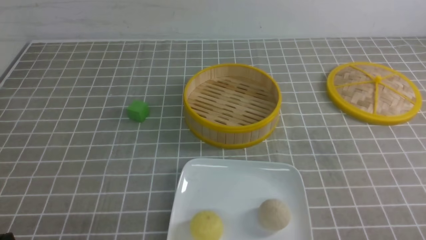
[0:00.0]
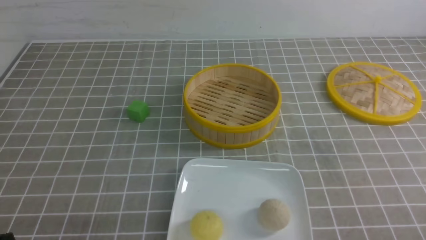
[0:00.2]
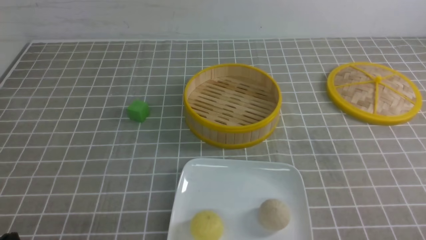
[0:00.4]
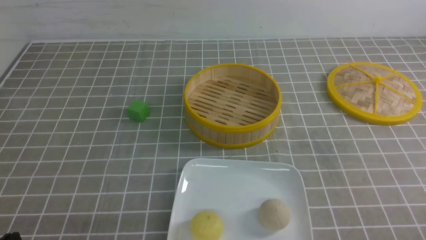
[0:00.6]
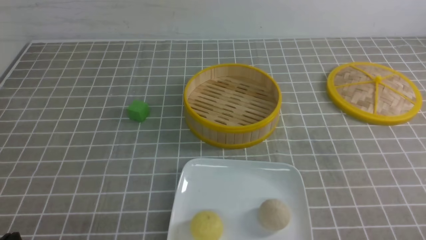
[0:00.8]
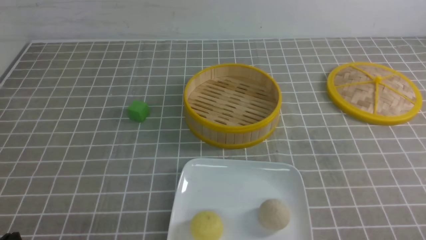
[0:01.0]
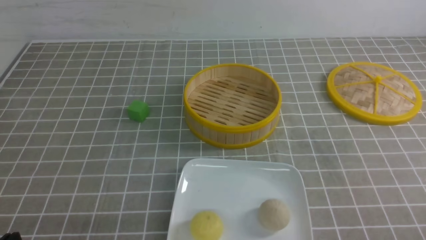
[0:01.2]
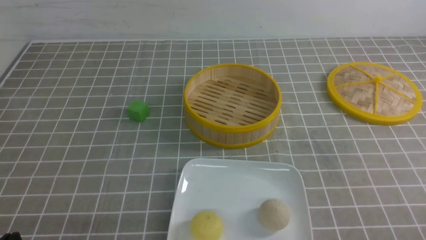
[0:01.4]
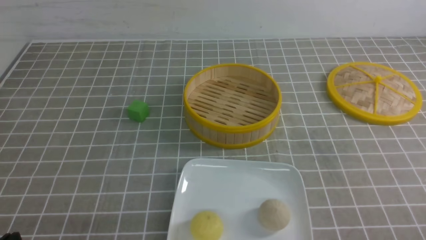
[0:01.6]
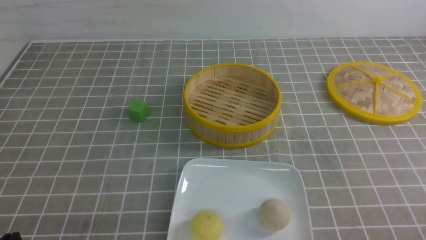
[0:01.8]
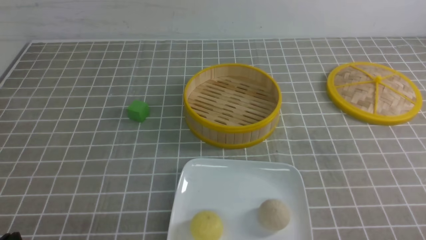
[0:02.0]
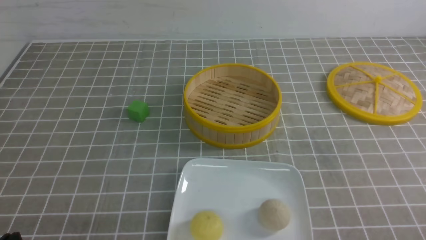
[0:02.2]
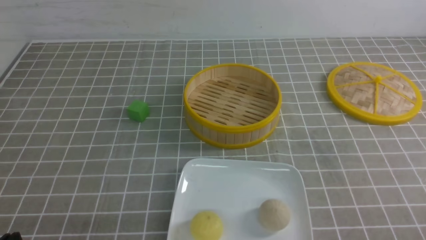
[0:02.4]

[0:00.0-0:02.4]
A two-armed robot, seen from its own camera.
0:00.0 to 0:02.4: The two grippers keep their place.

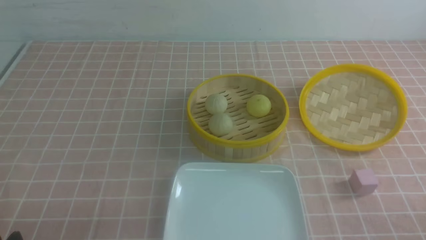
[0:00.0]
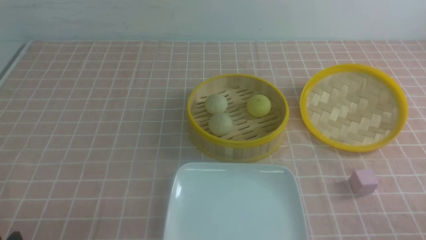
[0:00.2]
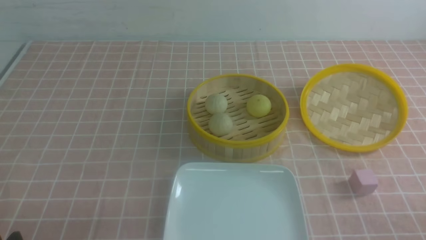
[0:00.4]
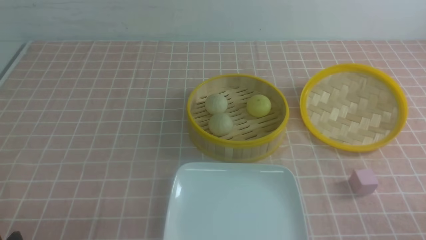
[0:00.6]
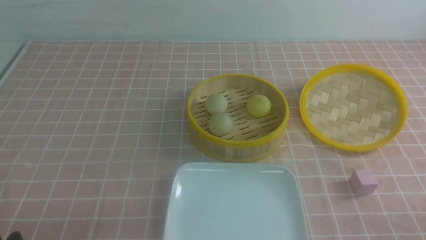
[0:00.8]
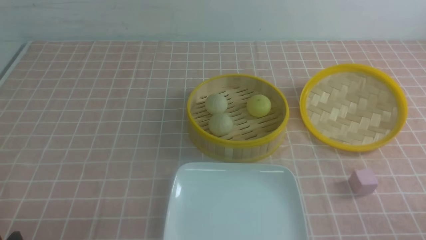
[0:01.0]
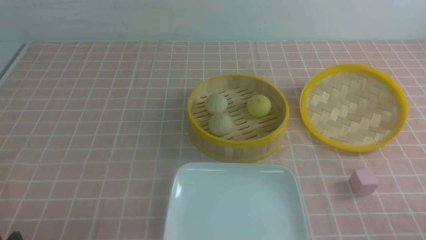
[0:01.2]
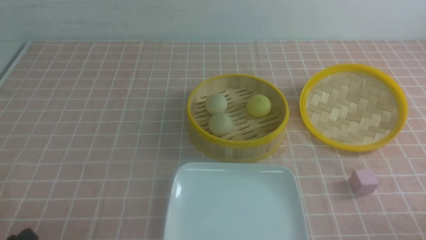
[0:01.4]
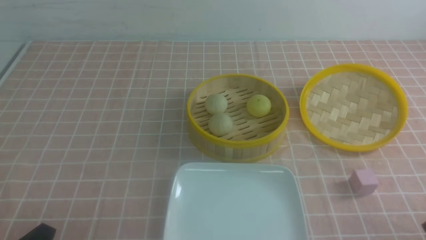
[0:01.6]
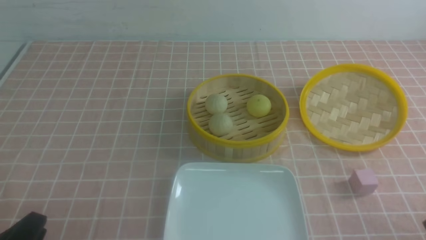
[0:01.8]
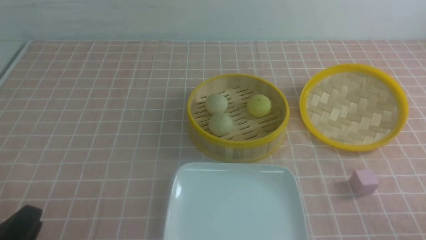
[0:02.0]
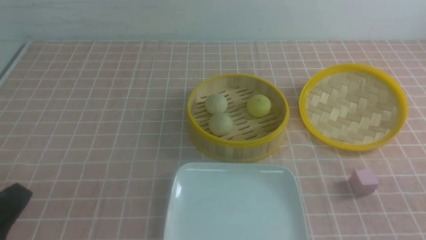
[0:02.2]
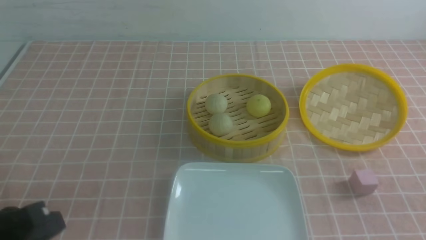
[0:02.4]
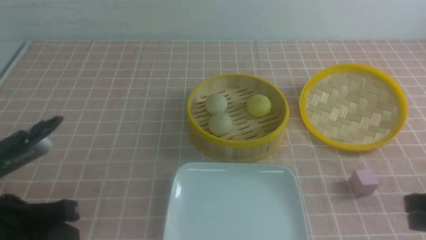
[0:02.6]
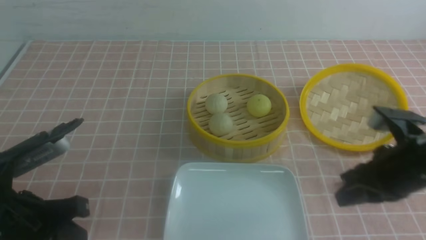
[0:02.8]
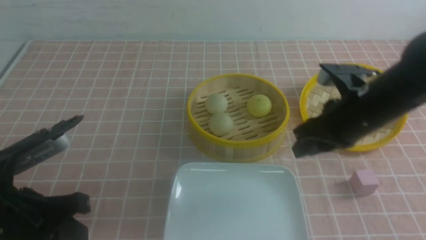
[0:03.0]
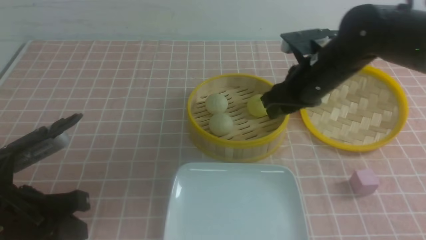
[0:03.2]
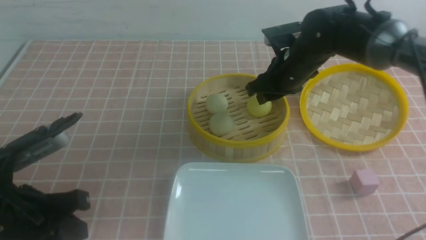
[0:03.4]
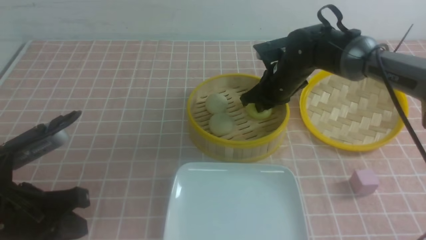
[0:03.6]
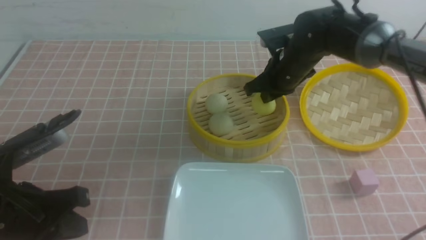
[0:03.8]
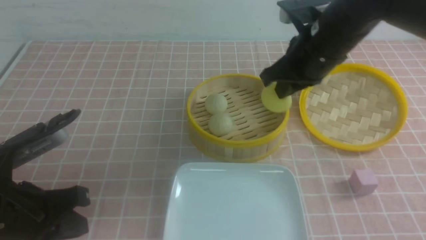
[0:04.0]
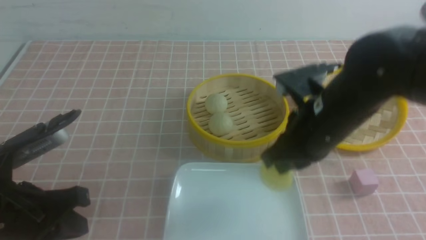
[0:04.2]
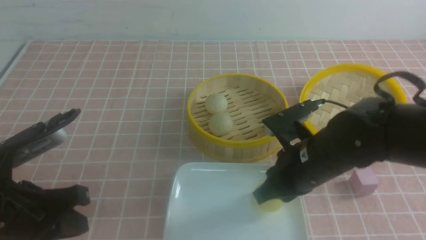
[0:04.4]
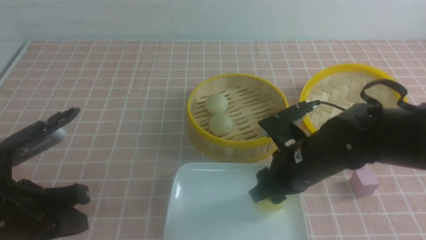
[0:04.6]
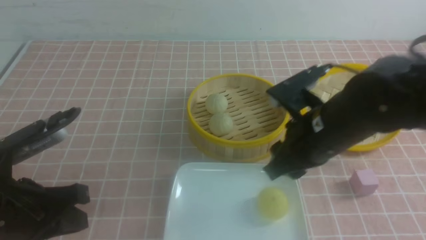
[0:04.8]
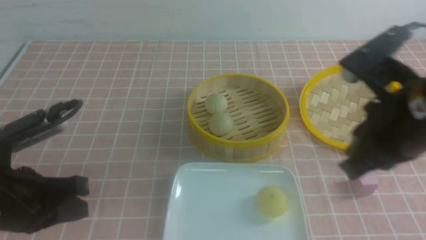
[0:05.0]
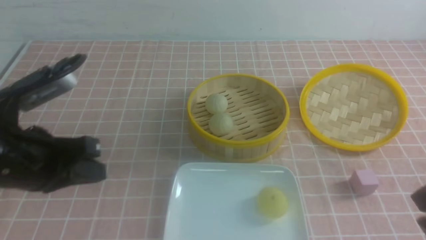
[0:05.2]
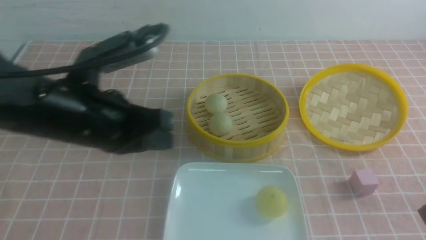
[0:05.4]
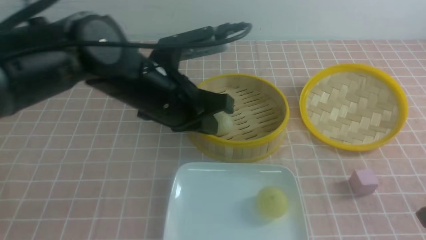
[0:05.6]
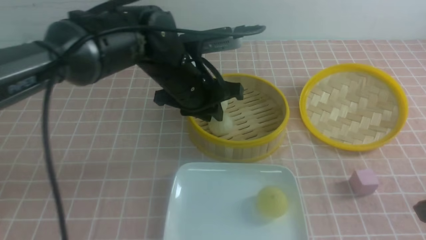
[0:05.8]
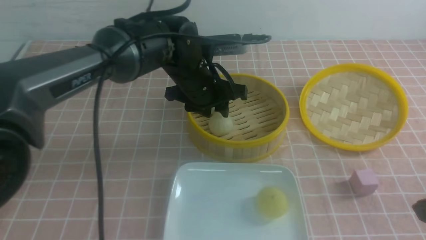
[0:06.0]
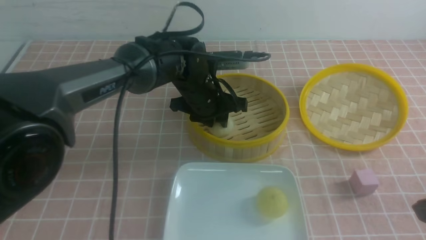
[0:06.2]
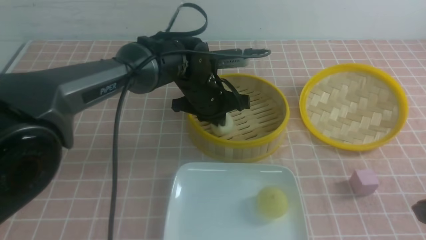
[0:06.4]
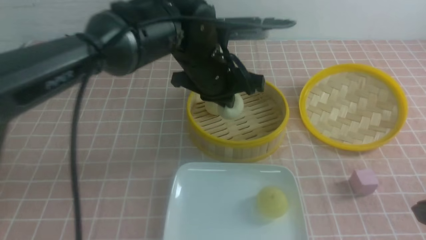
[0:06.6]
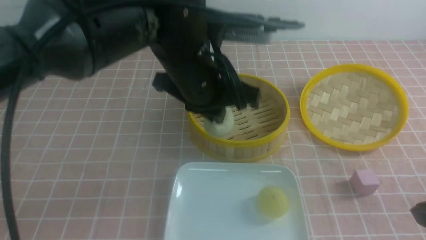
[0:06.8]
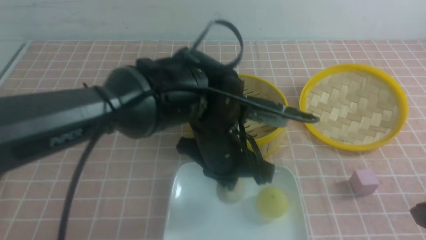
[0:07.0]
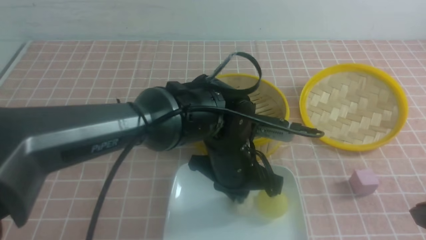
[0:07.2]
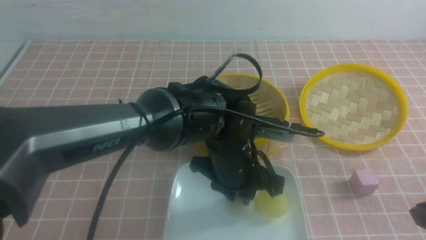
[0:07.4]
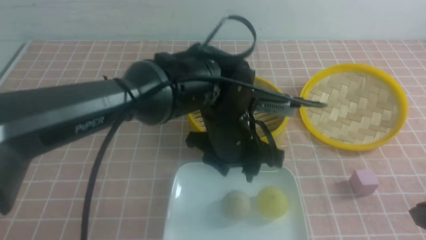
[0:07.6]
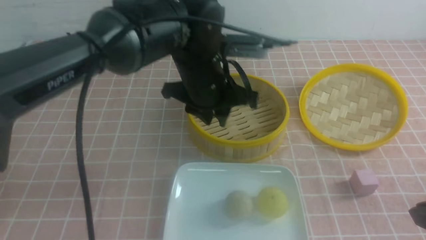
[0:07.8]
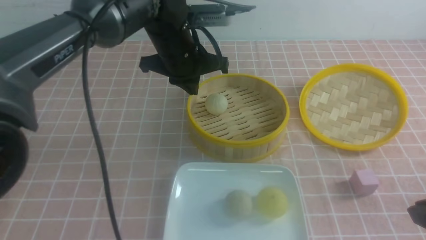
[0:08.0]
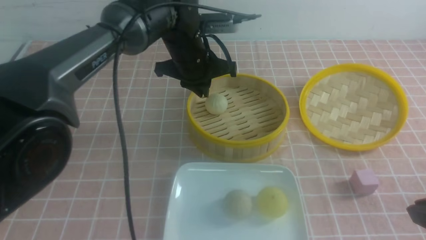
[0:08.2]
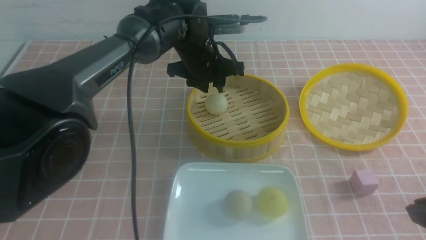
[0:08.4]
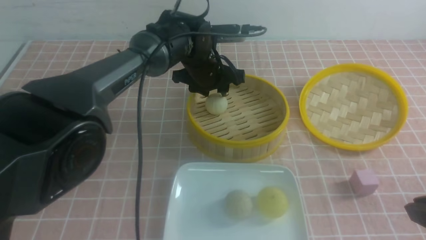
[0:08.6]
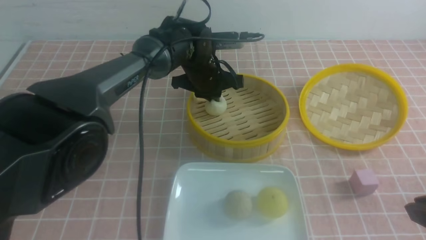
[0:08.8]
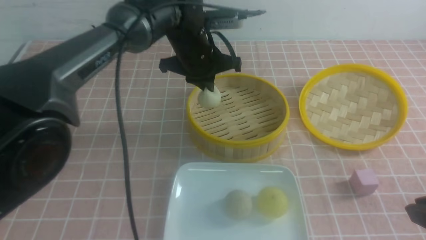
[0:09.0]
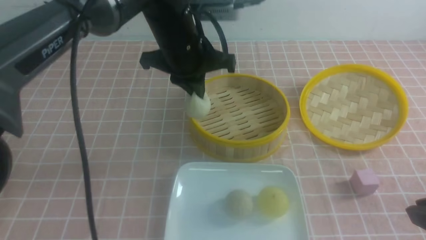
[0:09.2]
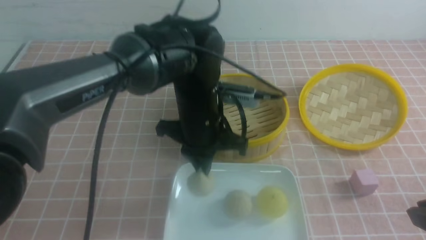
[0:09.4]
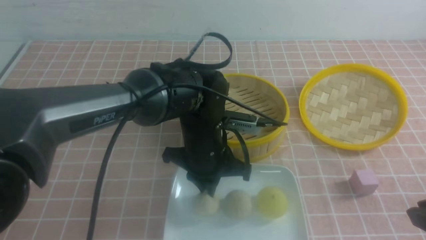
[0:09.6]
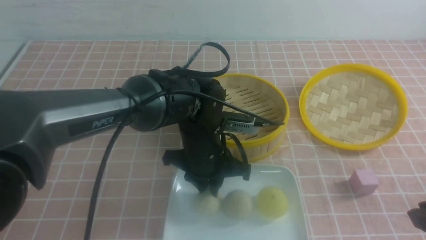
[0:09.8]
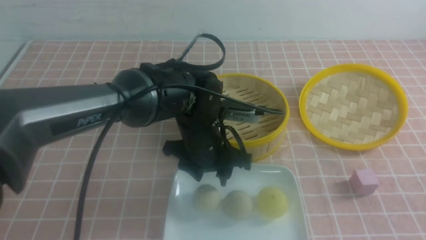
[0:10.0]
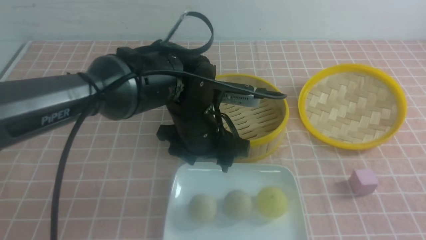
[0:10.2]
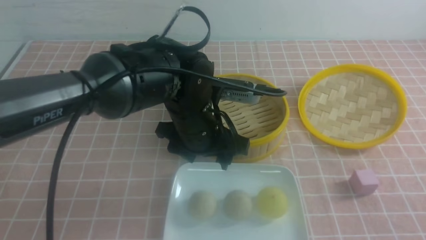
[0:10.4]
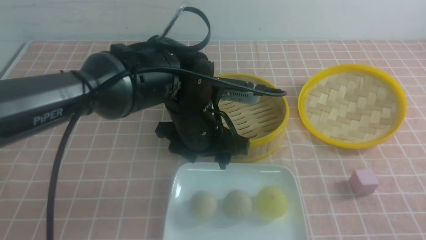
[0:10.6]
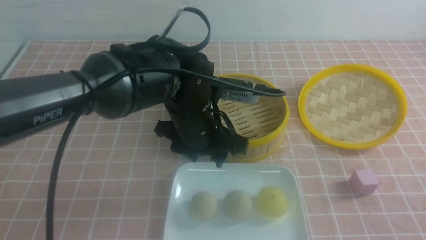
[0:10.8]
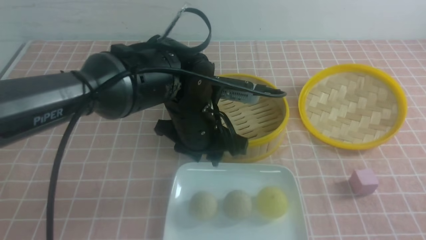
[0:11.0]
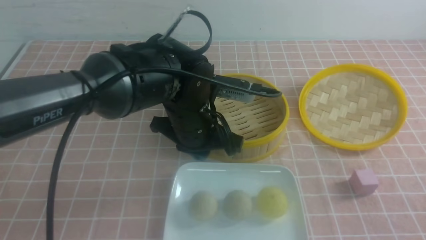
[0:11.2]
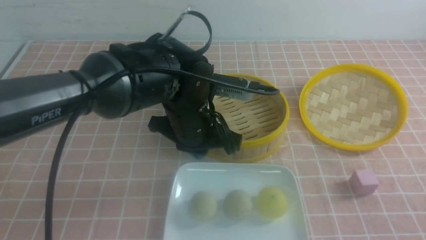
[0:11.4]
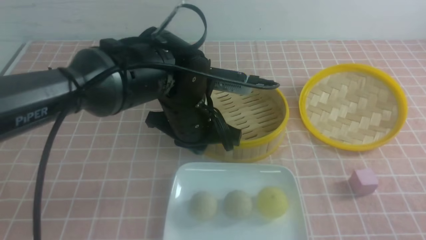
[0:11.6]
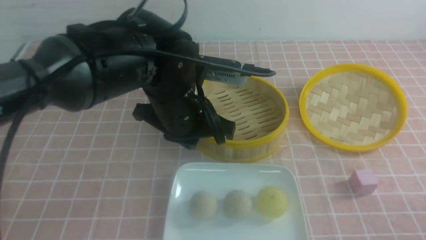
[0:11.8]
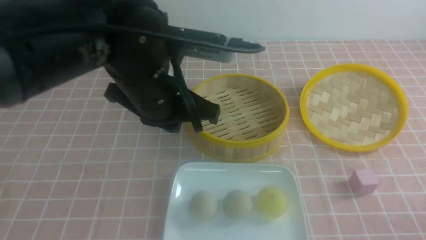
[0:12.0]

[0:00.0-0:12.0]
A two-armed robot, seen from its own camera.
Step, 0:00.0 to 0:03.6: use the right arm to grab the steamed stuffed bun that is closest to it.
Step, 0:03.8 to 0:04.6: use the right arm to put the steamed stuffed bun into the plate.
Step, 0:04.8 to 0:06.4: use the left arm to grab the steamed stuffed bun that is closest to it.
Step, 0:06.6 to 0:07.4: use the left arm to put the steamed stuffed bun into the plate.
Step, 0:07.6 to 0:08.8: use the left arm to grab the steamed stuffed bun that is closest to it.
Step, 0:09.0 to 0:10.0: use the left arm to put the steamed stuffed bun into the plate.
0:01.6 to 0:03.0: The right gripper shifts approximately 30 cm forward and to the left, and closes, then opens again; the left gripper moves forward and upward, roughly 10 cm, and closes its fingers.
0:03.0 to 0:04.4: The right gripper moves to the left and downward, some 10 cm, travels forward and back again, approximately 15 cm each way, and closes, then opens again.
0:04.4 to 0:06.0: The right gripper heads backward, to the right and upward, covering some 20 cm, and closes, while the left gripper travels forward and to the right by some 30 cm, and opens up.
0:06.0 to 0:07.6: The left gripper moves backward, some 10 cm, and closes, then reopens.
0:07.6 to 0:09.0: The left gripper heads forward, covering roughly 10 cm, and closes its fingers.
0:09.0 to 0:10.4: The left gripper moves backward, about 10 cm, and opens its fingers. The right gripper travels backward by some 5 cm, and closes up.
0:10.4 to 0:12.0: The left gripper is displaced upward and to the left by approximately 10 cm, and closes. Meanwhile the right gripper travels downward by roughly 10 cm.

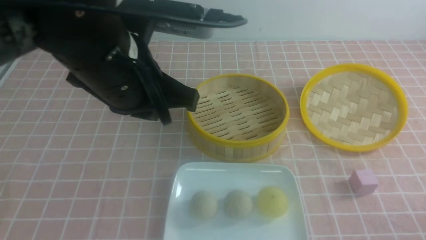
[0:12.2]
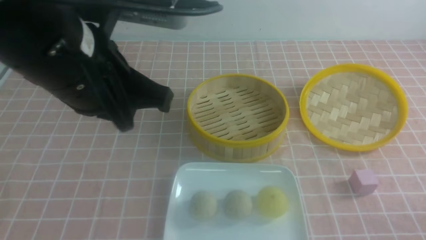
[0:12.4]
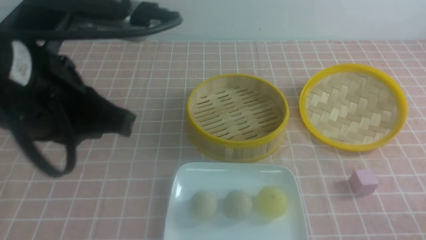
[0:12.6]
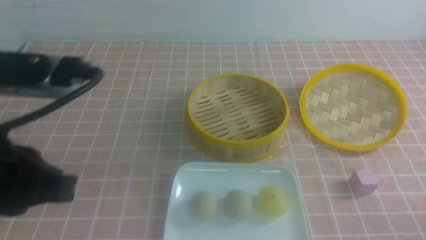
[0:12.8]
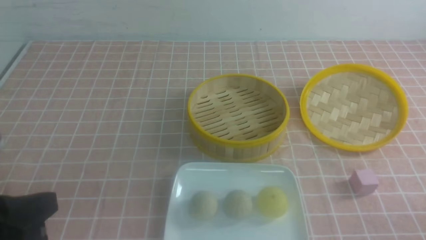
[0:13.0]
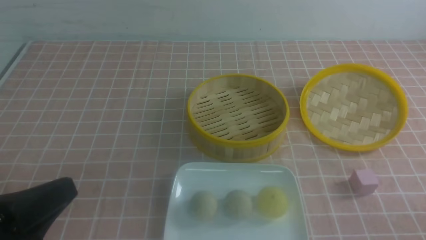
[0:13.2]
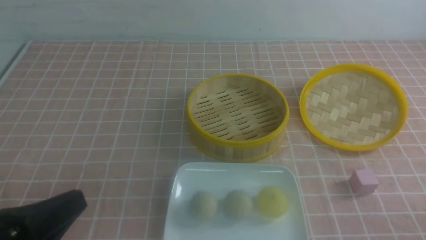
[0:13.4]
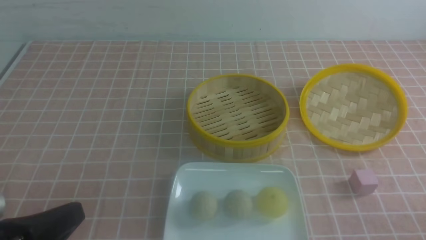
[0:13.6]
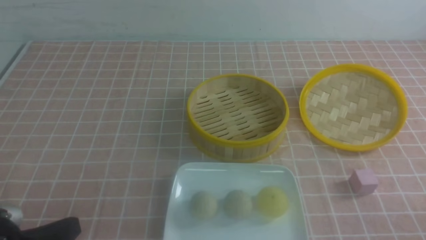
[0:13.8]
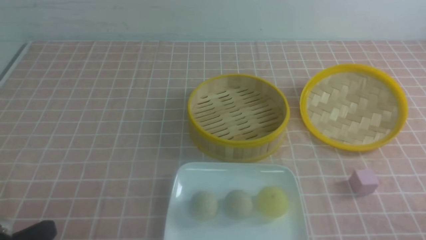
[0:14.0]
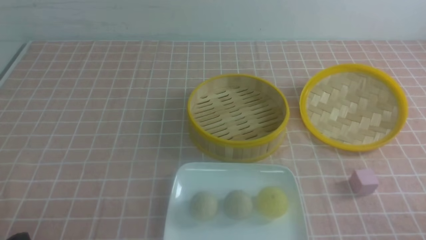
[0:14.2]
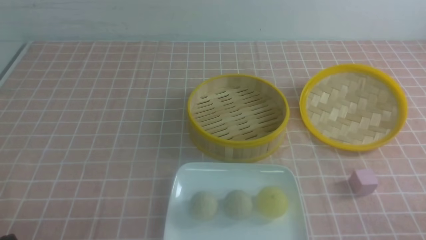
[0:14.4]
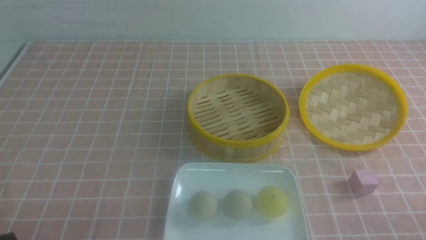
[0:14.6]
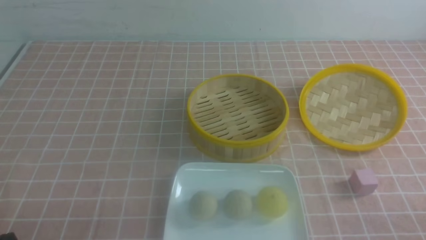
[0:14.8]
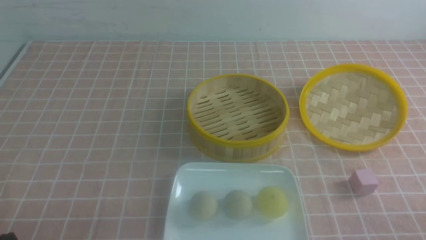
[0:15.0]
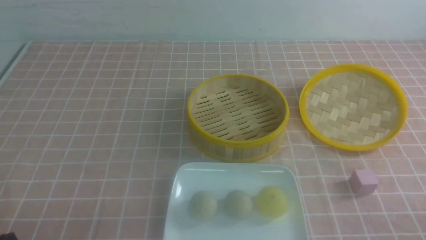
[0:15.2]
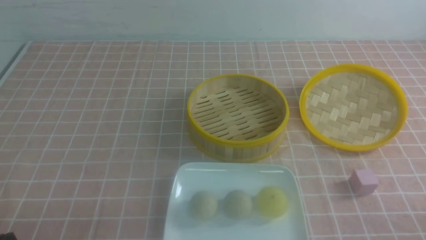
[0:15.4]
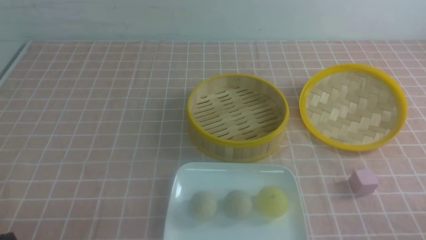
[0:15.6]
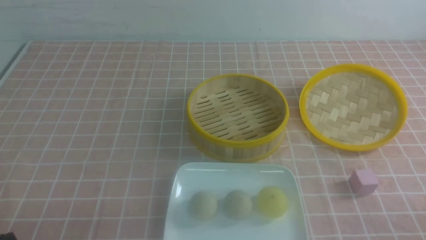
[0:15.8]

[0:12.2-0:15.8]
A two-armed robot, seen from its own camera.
0:12.2 to 0:14.0: The left gripper heads backward, downward and to the left, covering about 30 cm.
